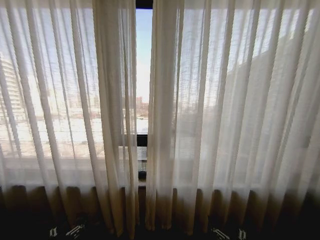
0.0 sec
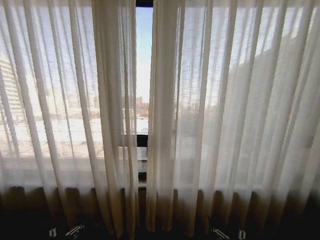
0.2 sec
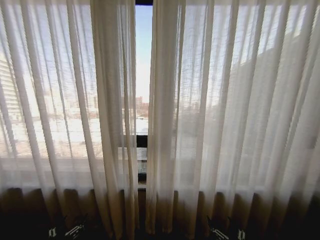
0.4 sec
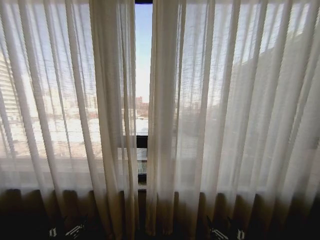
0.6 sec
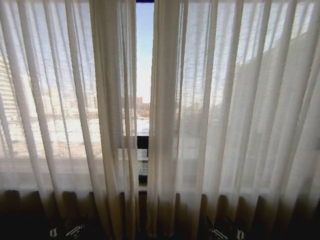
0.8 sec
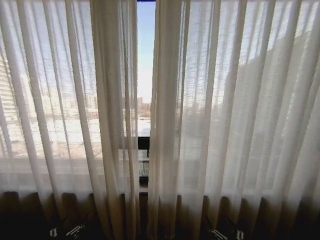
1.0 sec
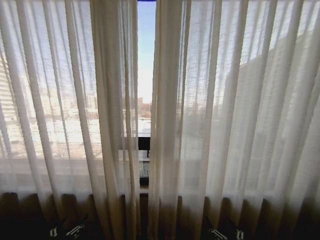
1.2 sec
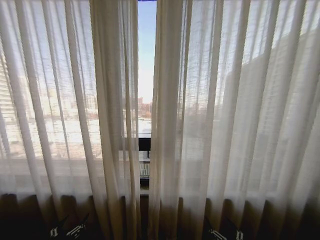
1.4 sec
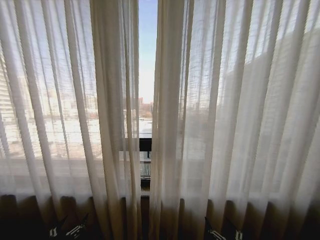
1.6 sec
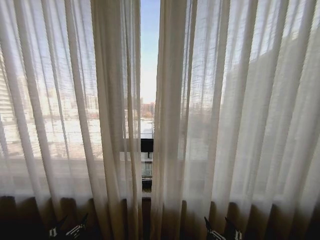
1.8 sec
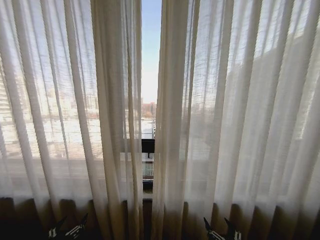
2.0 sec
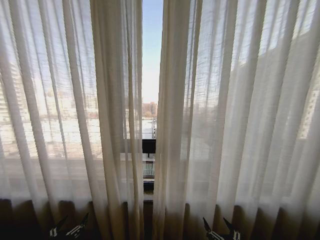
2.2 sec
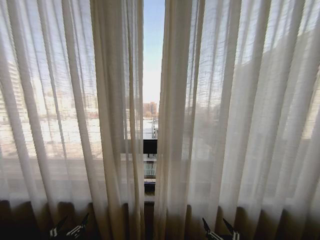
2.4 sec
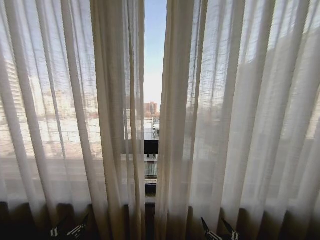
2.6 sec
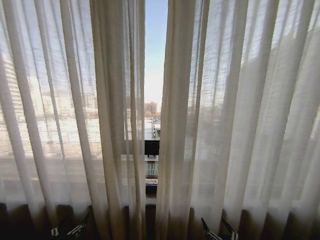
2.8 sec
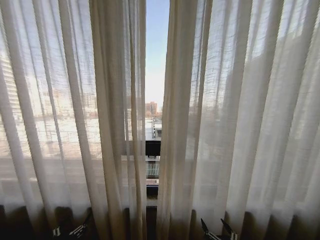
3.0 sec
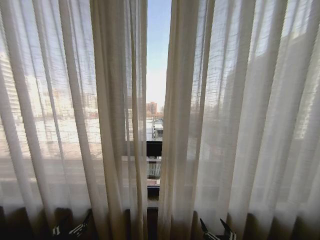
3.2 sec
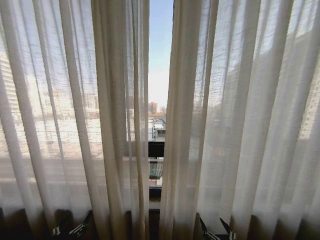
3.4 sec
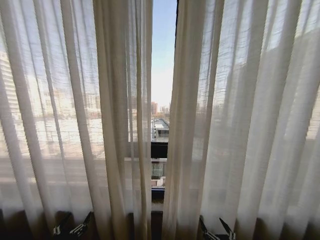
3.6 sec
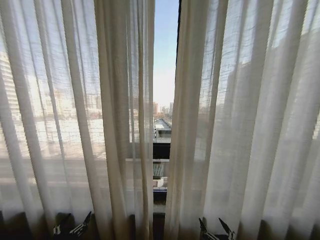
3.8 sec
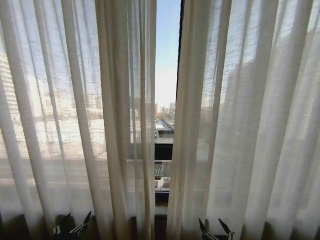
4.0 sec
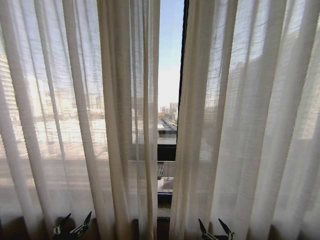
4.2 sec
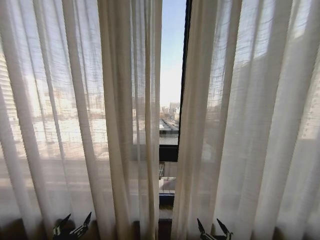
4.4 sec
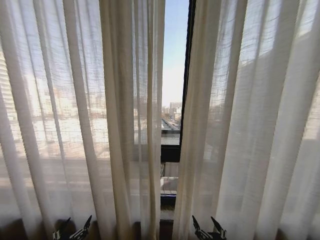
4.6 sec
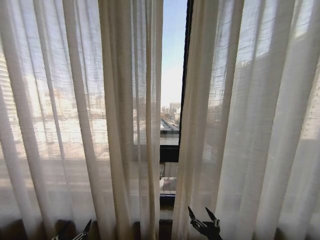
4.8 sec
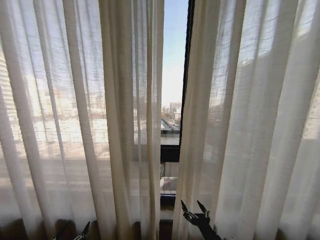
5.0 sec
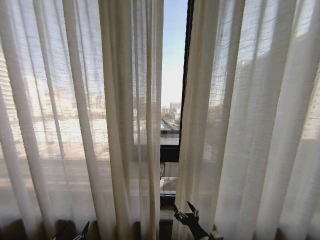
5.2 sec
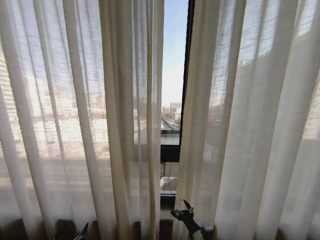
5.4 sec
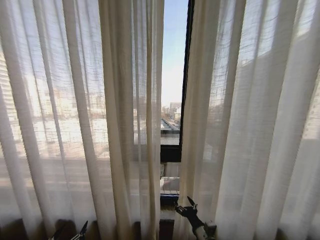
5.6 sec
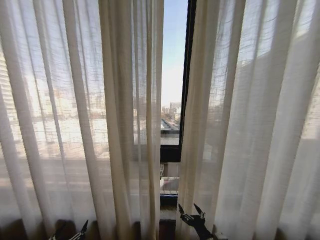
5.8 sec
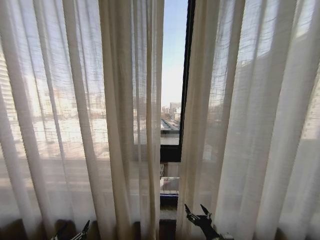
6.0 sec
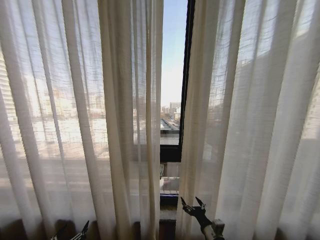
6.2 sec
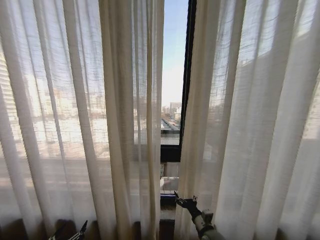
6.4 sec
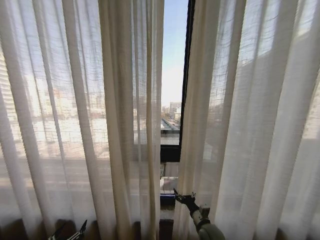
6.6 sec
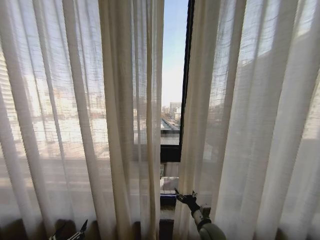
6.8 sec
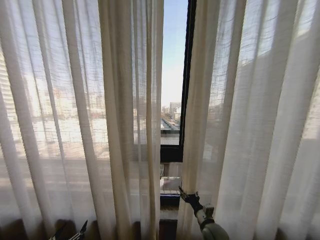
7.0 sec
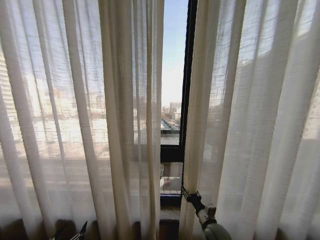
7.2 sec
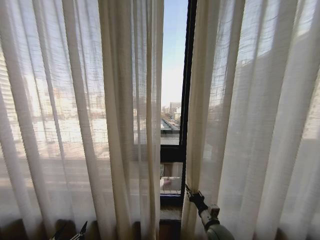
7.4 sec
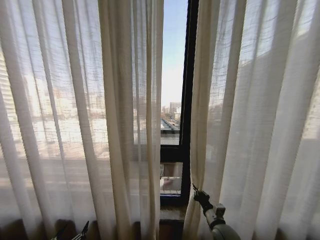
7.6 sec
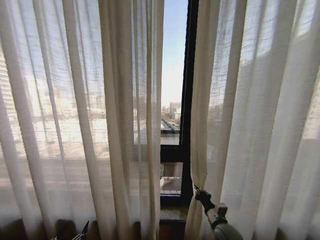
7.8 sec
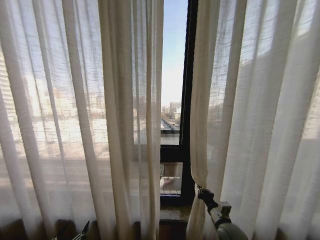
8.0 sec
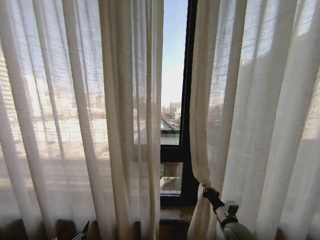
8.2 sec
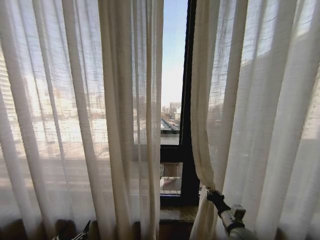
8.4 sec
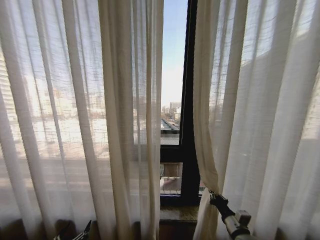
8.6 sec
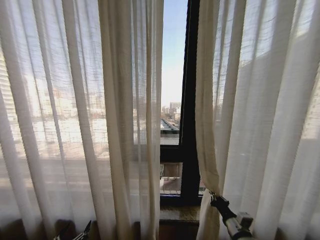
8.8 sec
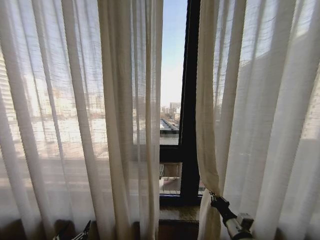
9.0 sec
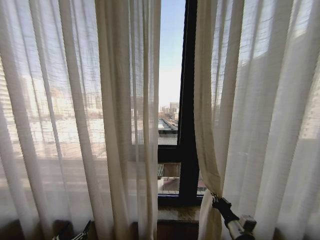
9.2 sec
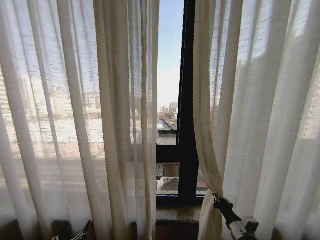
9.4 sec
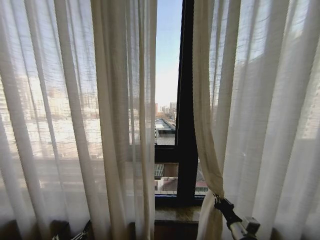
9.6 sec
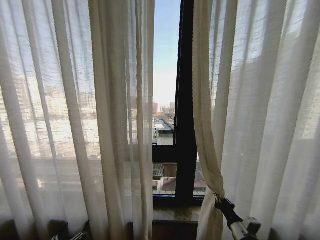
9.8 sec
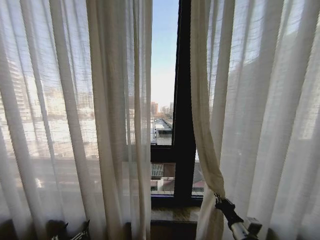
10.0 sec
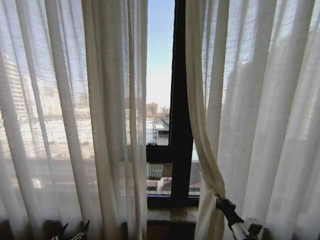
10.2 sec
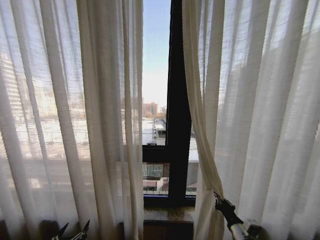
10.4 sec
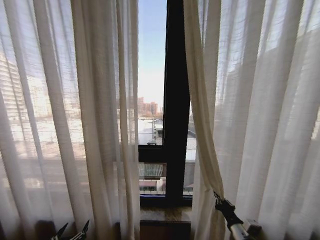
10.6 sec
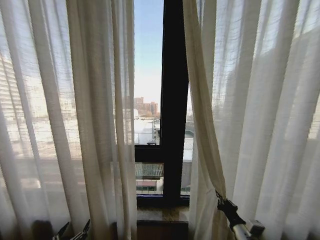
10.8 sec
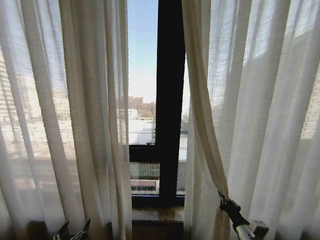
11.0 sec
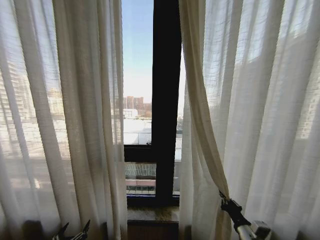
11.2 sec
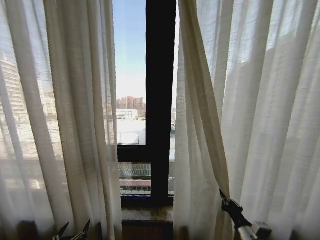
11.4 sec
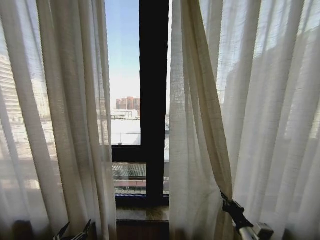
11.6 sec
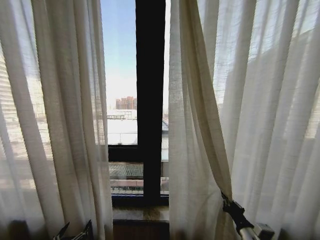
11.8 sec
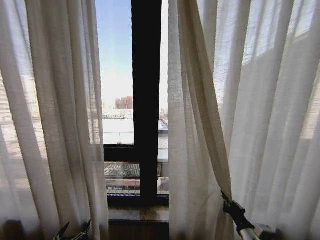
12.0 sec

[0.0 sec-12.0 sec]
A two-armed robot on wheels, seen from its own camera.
Task of the whole recording: Open the curtains by pulling them apart, changing their state from closed to fully open.
4.4 sec to 6.0 sec: The right gripper goes roughly 10 cm forward.
6.0 sec to 7.6 sec: The right gripper shifts some 10 cm forward, and closes up.
7.6 sec to 9.0 sec: The right gripper heads backward, covering about 5 cm.

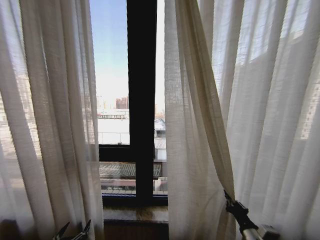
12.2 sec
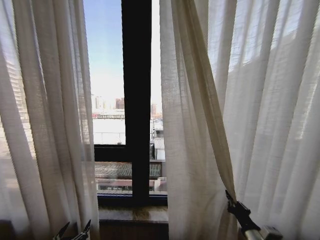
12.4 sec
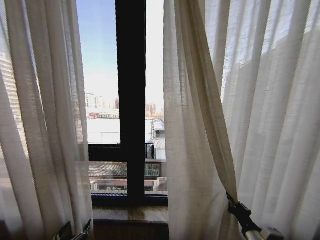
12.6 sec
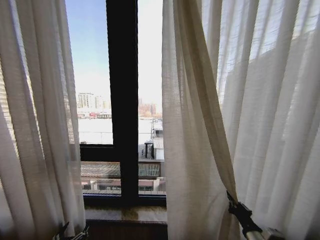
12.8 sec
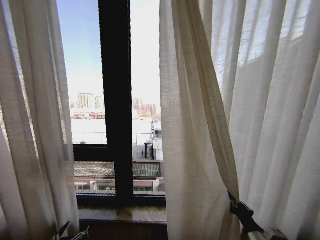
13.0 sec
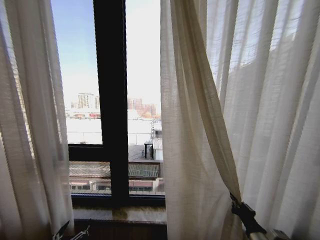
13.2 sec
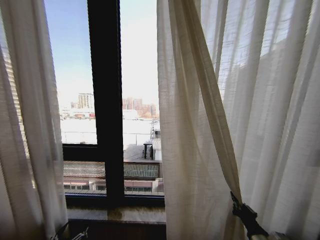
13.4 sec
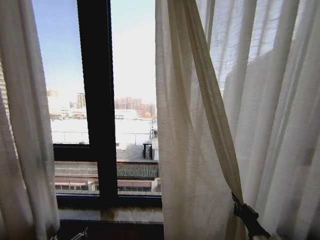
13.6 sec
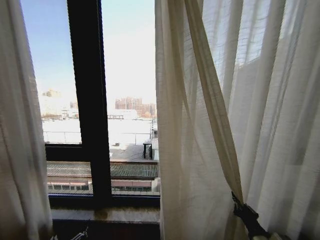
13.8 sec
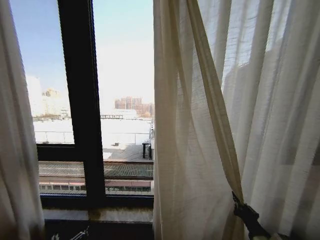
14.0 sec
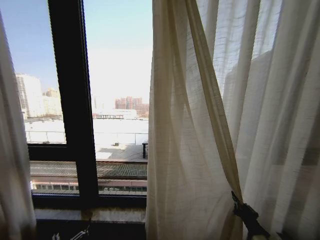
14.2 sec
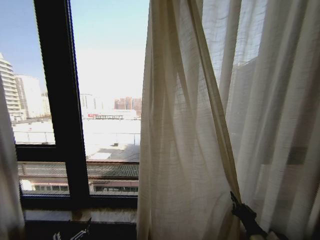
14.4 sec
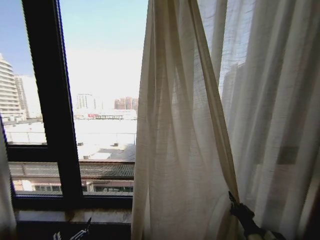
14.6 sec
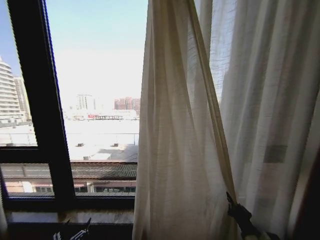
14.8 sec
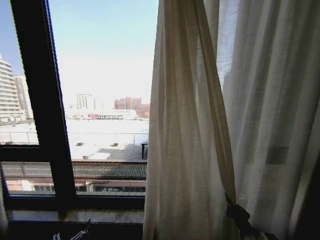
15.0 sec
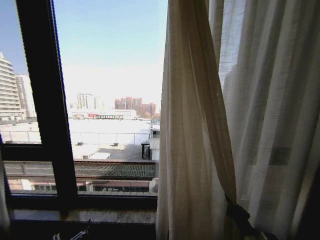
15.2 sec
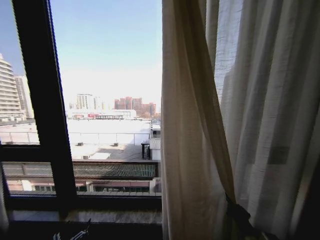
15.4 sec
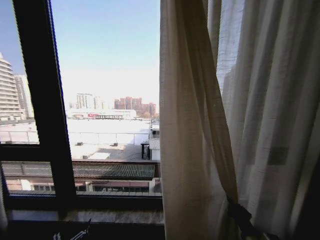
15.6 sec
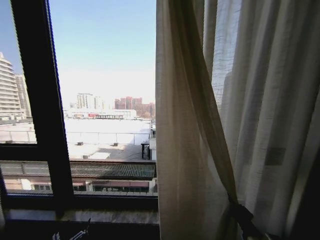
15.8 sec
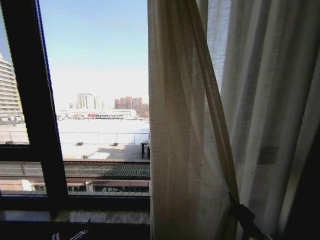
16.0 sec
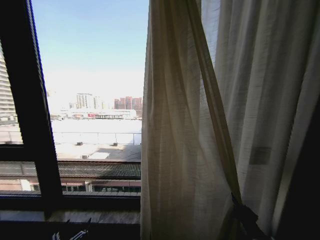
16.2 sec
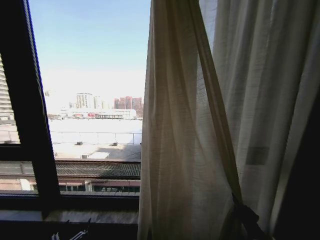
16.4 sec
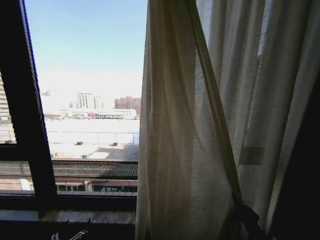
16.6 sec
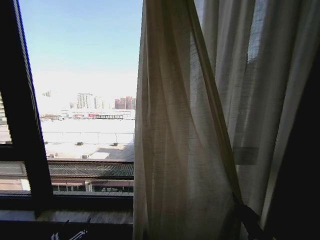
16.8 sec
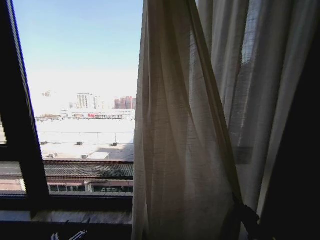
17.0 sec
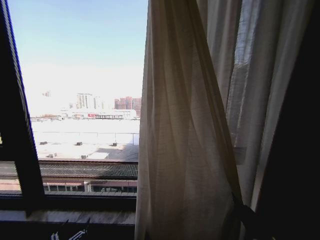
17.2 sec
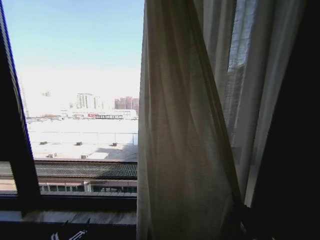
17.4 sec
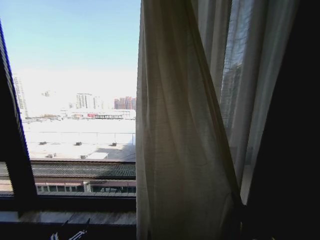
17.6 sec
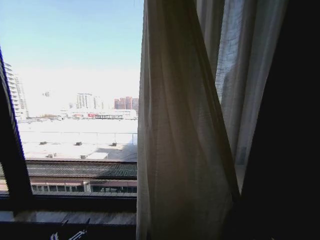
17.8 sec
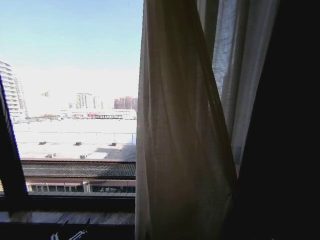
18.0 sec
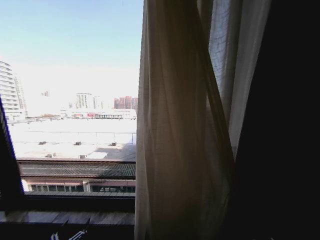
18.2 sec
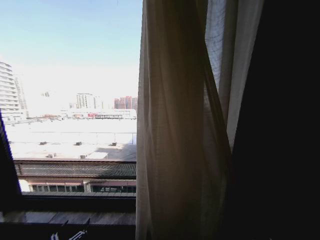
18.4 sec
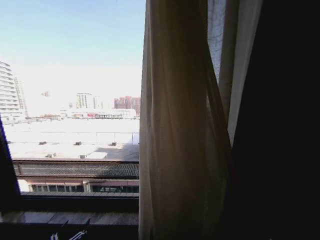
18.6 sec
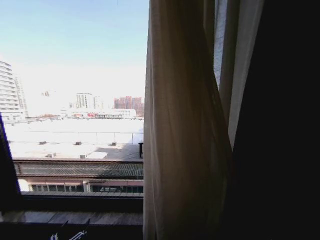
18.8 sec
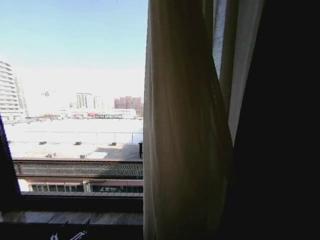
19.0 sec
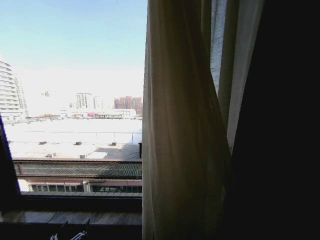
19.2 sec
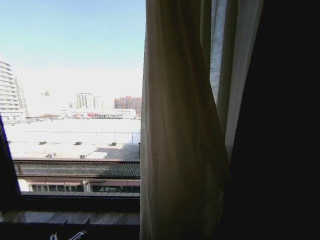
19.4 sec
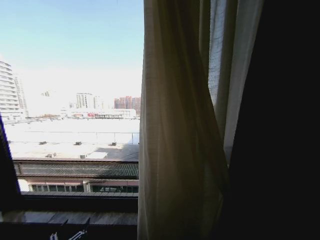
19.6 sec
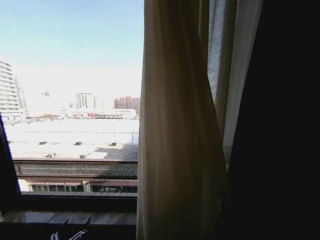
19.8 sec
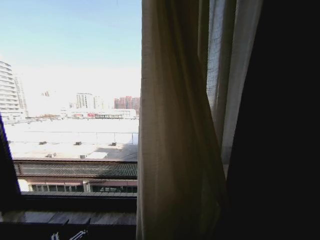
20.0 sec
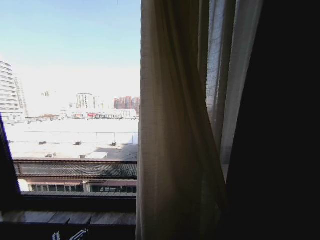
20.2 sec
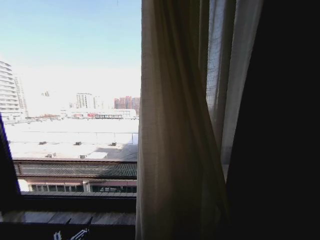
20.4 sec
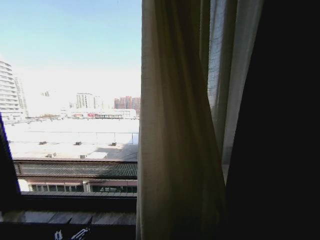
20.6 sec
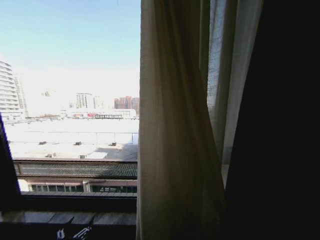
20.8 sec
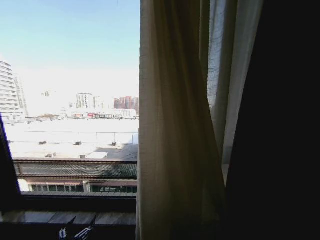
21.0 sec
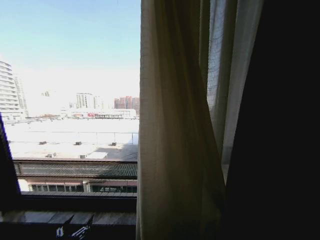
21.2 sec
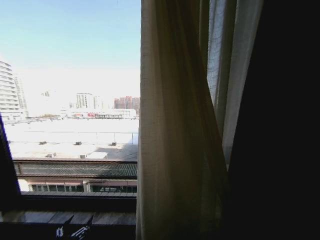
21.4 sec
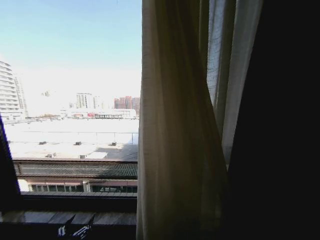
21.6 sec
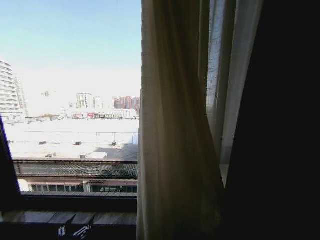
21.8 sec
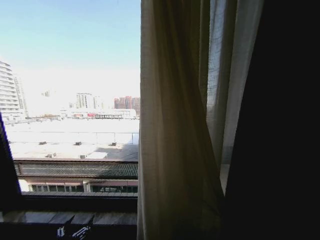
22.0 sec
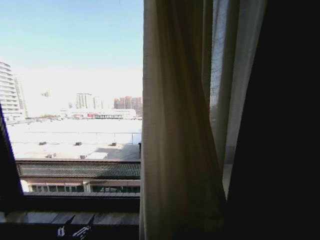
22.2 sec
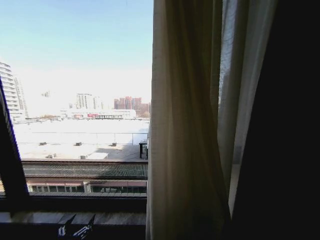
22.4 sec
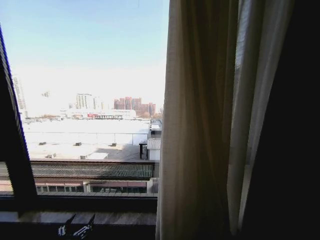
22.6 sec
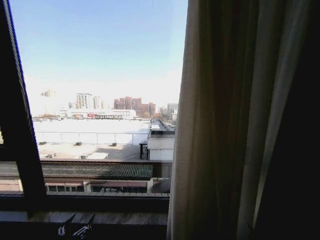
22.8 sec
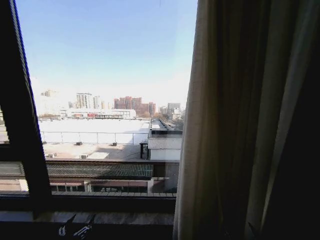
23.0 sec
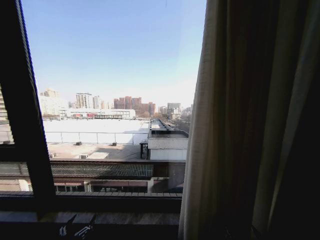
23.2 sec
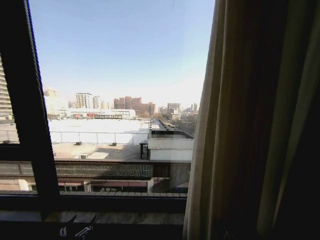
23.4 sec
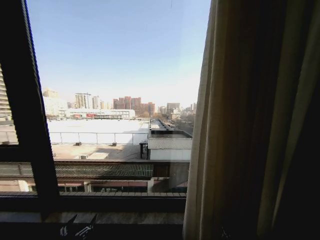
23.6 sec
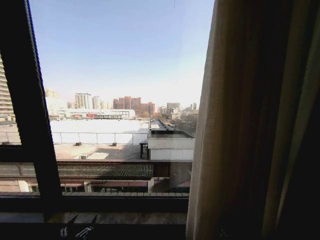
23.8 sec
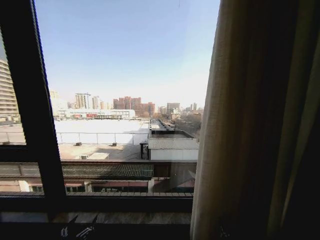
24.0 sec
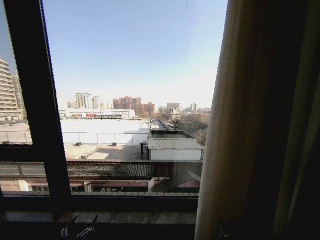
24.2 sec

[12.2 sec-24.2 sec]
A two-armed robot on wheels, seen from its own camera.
Task of the whole recording: Open the curtains by pulling them apart, changing their state from closed to fully open.
18.2 sec to 19.8 sec: The right gripper ends up roughly 5 cm from where it was, and opens up.
19.8 sec to 21.2 sec: The right gripper shifts by approximately 5 cm.
